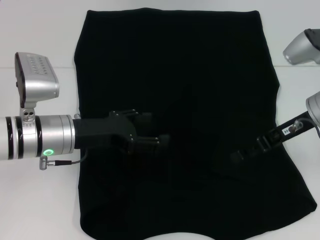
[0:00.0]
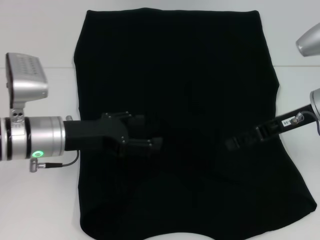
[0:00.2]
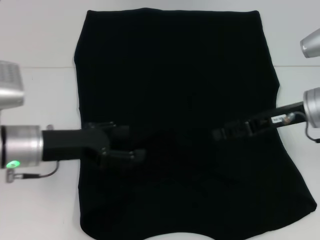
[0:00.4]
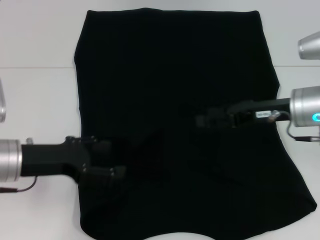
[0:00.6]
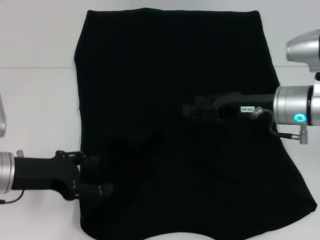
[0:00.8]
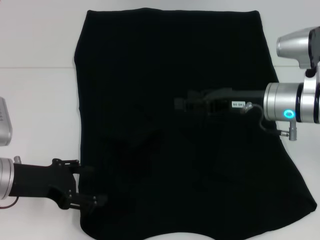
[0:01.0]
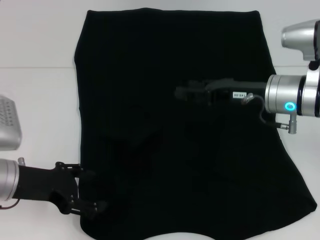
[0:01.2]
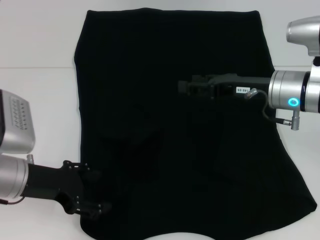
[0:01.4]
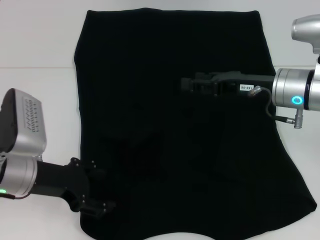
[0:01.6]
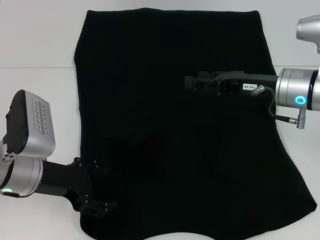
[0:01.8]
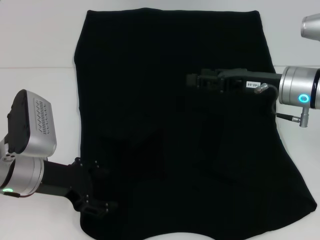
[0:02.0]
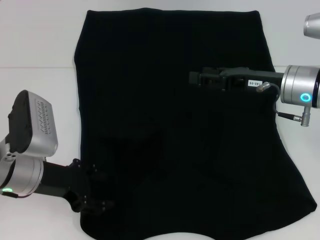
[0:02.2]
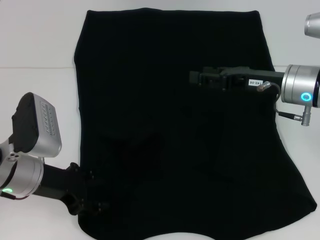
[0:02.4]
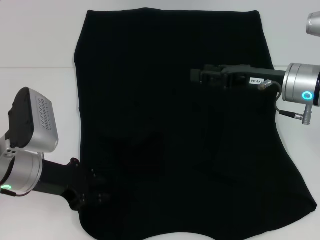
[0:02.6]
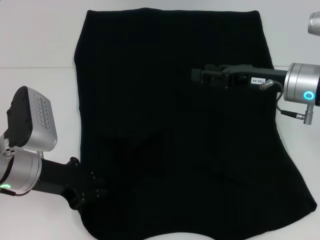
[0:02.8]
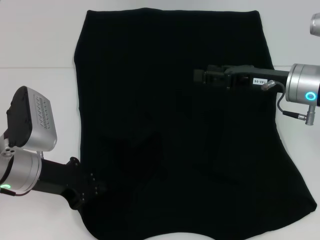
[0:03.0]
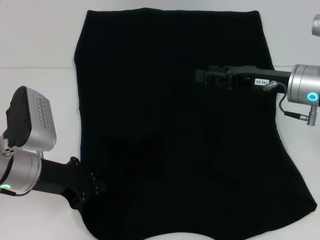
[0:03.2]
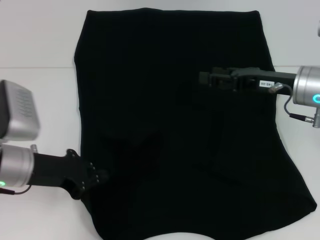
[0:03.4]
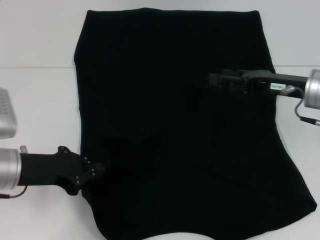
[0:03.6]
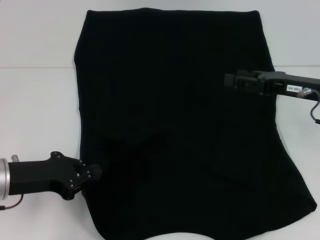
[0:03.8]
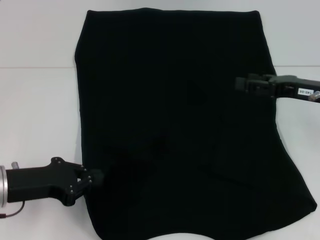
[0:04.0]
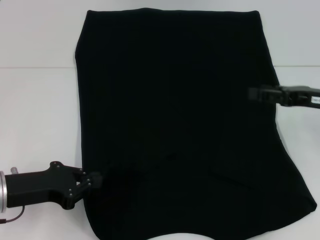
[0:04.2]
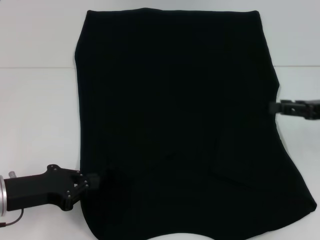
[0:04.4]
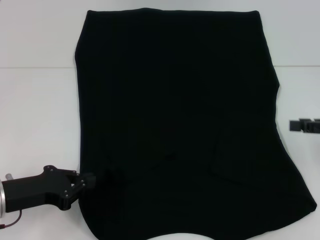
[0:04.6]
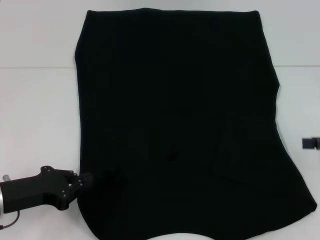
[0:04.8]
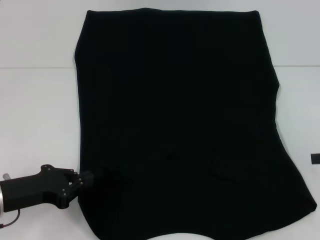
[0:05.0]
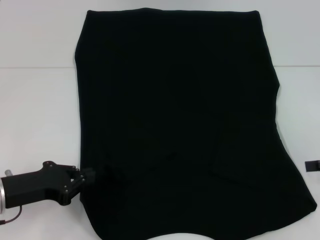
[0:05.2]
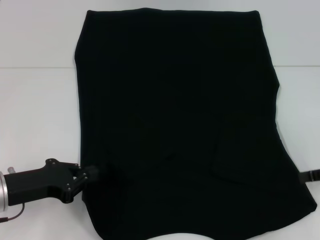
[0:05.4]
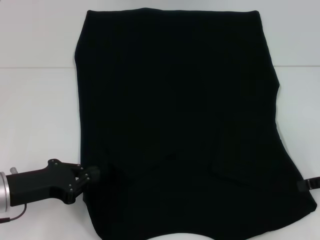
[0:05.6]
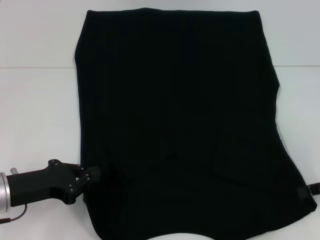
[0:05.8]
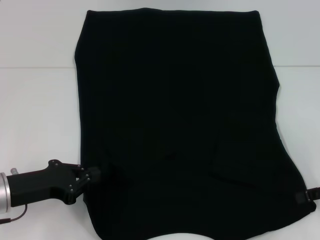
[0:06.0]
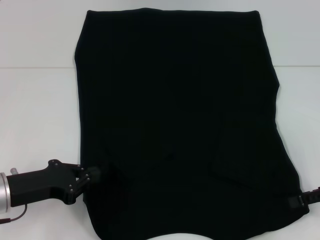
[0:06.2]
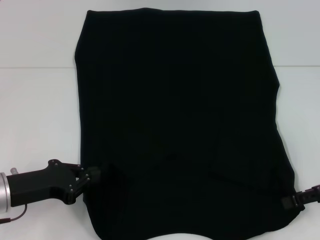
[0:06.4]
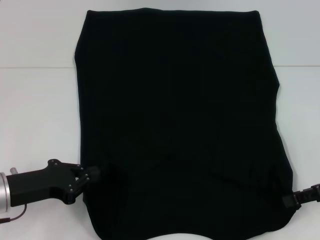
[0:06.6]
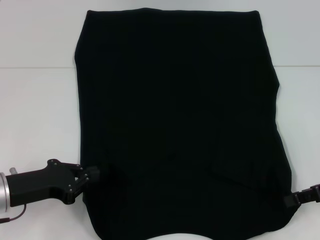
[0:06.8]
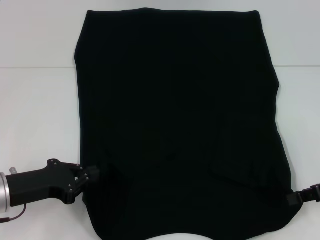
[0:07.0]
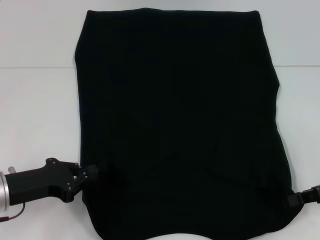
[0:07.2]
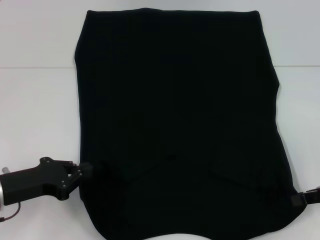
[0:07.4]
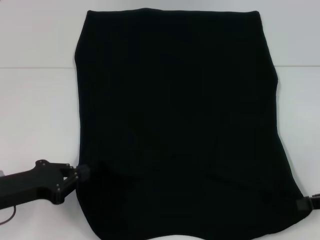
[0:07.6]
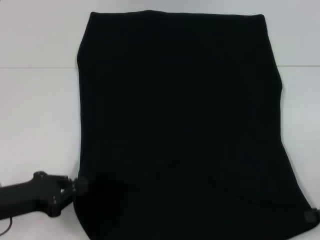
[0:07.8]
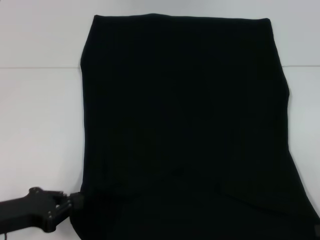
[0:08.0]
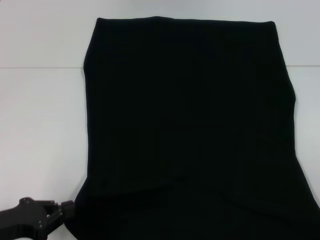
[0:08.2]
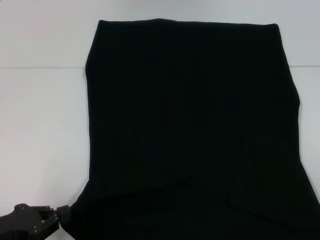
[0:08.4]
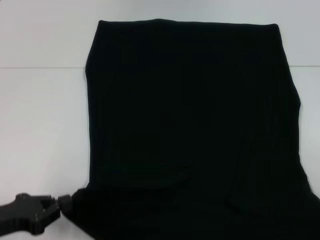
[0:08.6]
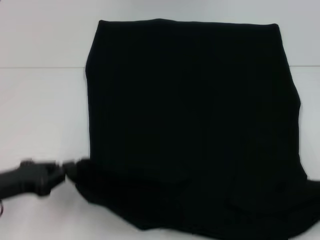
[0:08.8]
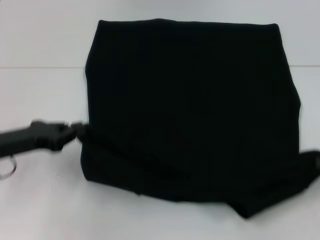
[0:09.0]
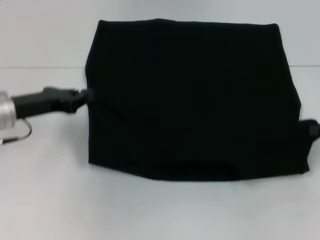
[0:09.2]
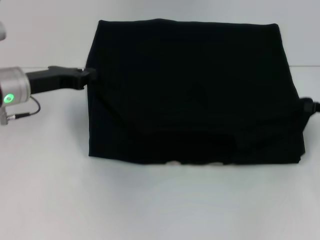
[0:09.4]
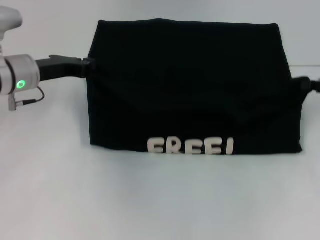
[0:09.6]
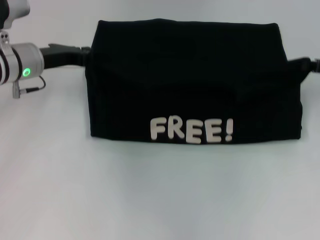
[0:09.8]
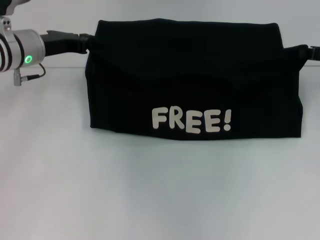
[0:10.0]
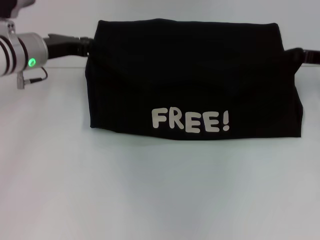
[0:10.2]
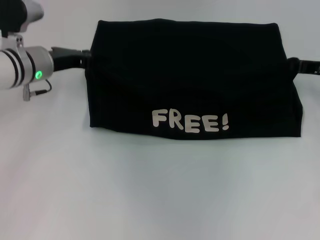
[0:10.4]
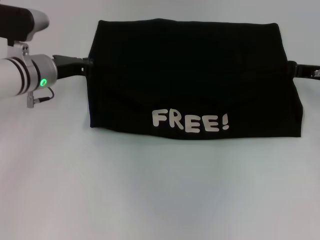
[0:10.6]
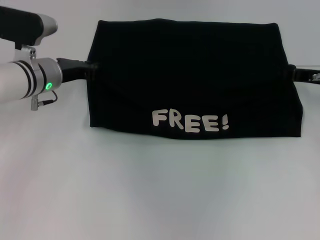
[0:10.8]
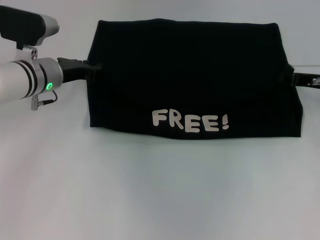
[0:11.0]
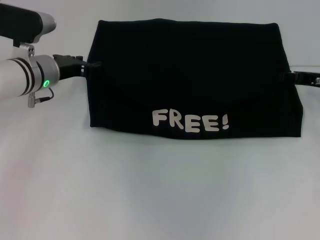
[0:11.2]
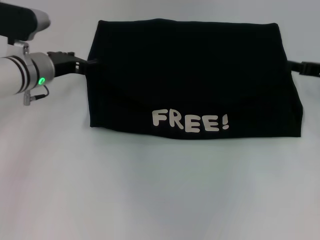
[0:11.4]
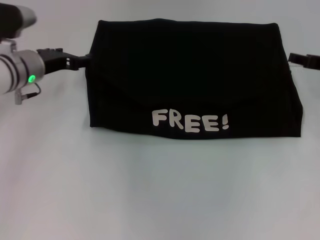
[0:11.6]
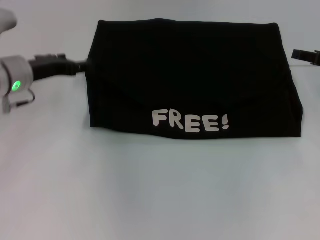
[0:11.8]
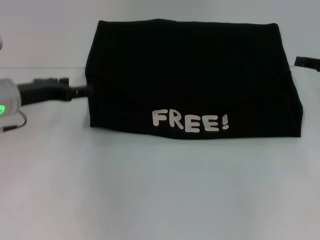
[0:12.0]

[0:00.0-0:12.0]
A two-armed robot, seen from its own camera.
Step, 0:00.2 to 0:03.0: Grab the bottom left corner with your left hand.
Step, 0:03.2 to 0:07.2: Grab the bottom right corner with your right hand.
Step, 0:07.4 to 0:11.0: Fold the clothes with your left hand.
Step, 0:07.4 to 0:11.0: Fold the clothes with your right hand.
0:00.0 to 0:01.6: The left gripper shifts by approximately 5 cm.
0:01.6 to 0:03.0: The left gripper closes.
0:03.0 to 0:04.4: The right gripper moves to the right, approximately 10 cm, while the left gripper goes roughly 5 cm backward.
0:04.4 to 0:06.0: The right gripper ends up approximately 5 cm from where it was.
0:06.0 to 0:07.6: The right gripper closes up.
0:07.6 to 0:09.0: The left gripper heads forward, covering roughly 5 cm.
0:09.0 to 0:10.4: The right gripper is displaced forward and to the left by some 15 cm, while the left gripper is displaced forward and to the right by roughly 15 cm.
0:10.4 to 0:12.0: The left gripper heads backward, covering about 5 cm, and opens up. Meanwhile the right gripper moves roughly 5 cm, and opens.

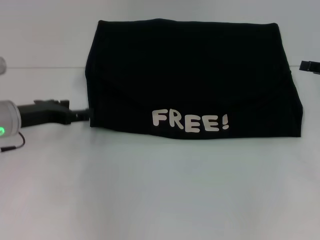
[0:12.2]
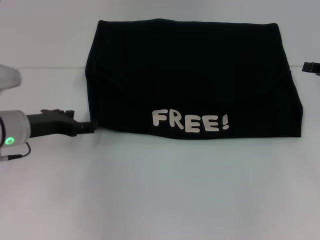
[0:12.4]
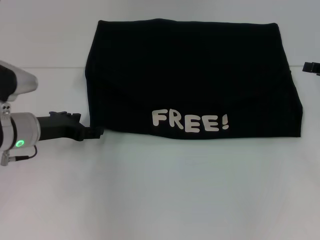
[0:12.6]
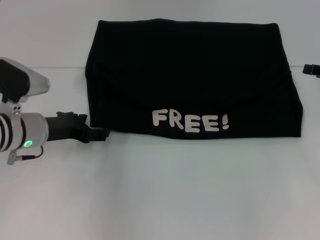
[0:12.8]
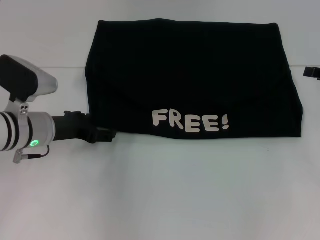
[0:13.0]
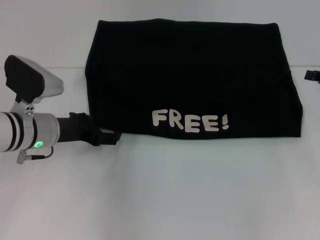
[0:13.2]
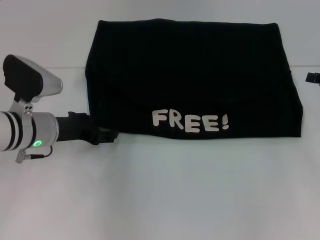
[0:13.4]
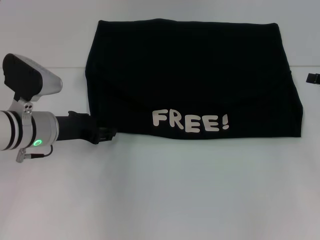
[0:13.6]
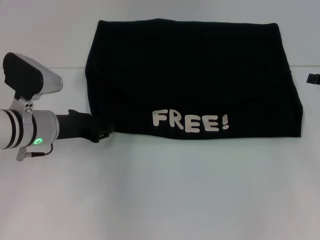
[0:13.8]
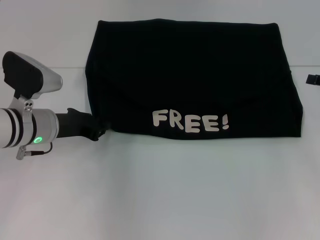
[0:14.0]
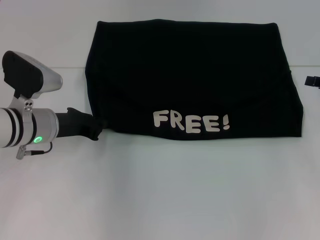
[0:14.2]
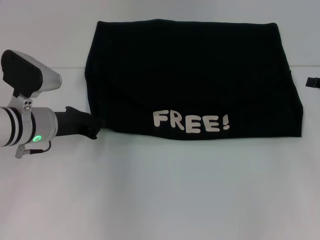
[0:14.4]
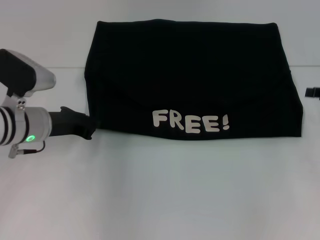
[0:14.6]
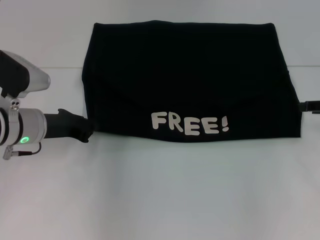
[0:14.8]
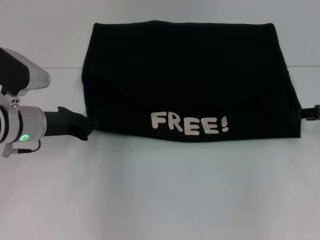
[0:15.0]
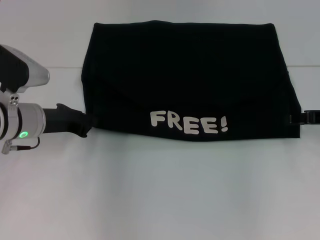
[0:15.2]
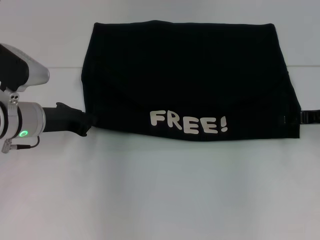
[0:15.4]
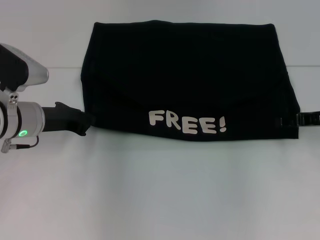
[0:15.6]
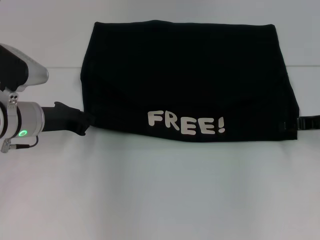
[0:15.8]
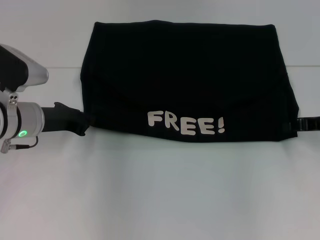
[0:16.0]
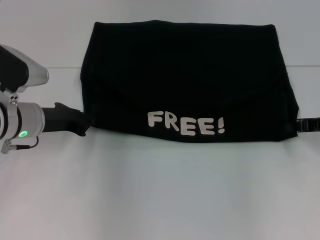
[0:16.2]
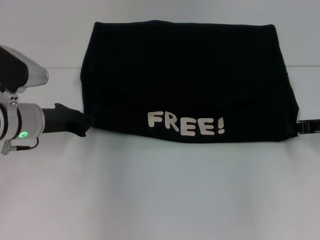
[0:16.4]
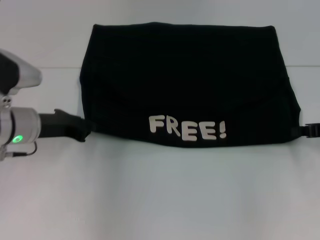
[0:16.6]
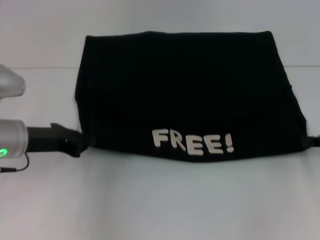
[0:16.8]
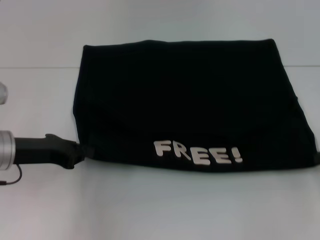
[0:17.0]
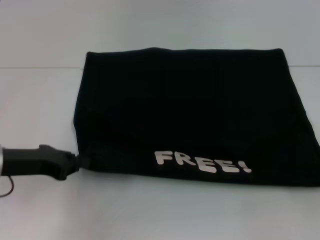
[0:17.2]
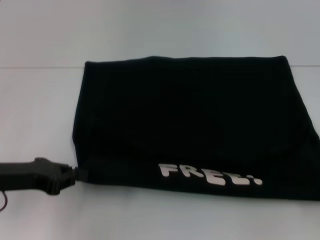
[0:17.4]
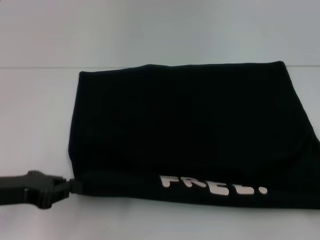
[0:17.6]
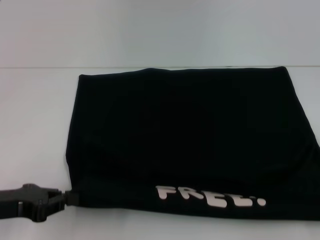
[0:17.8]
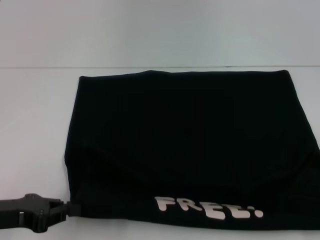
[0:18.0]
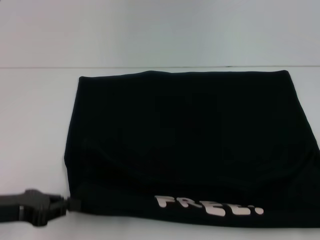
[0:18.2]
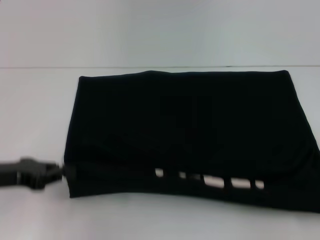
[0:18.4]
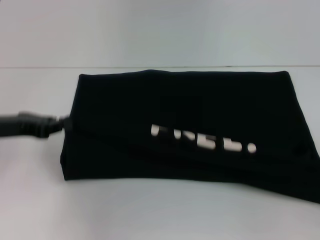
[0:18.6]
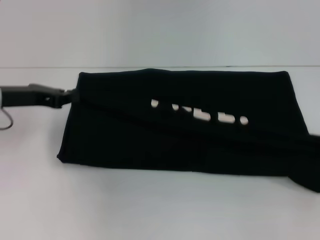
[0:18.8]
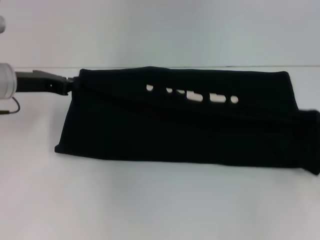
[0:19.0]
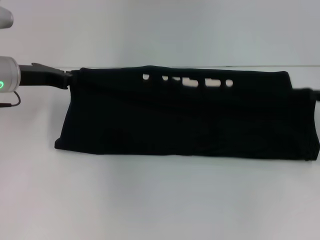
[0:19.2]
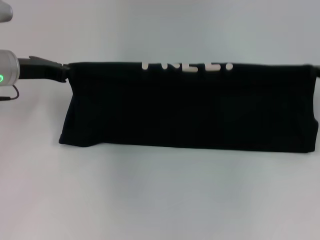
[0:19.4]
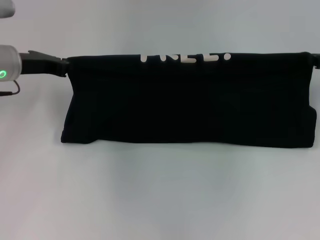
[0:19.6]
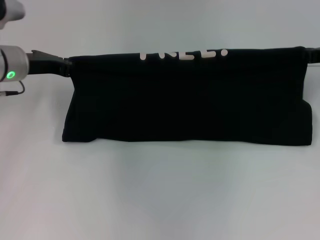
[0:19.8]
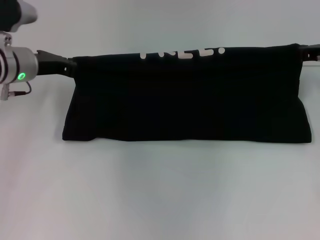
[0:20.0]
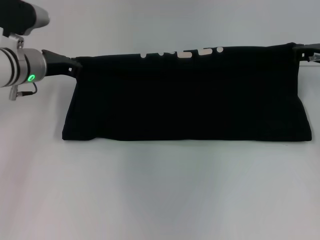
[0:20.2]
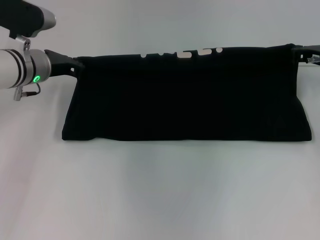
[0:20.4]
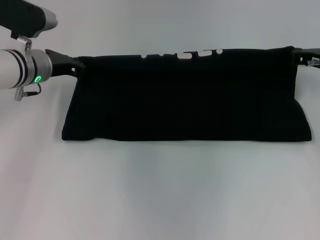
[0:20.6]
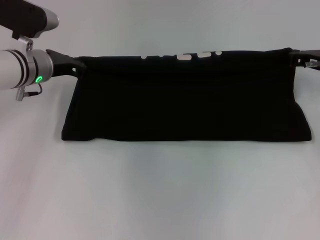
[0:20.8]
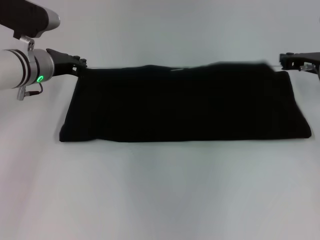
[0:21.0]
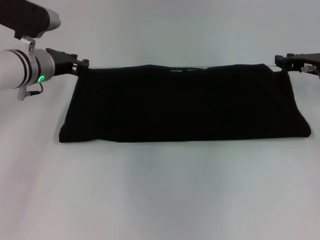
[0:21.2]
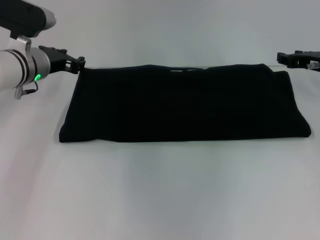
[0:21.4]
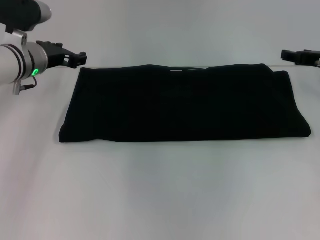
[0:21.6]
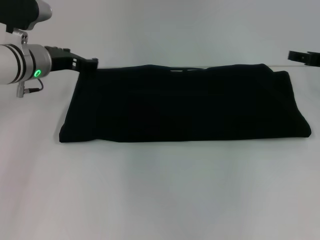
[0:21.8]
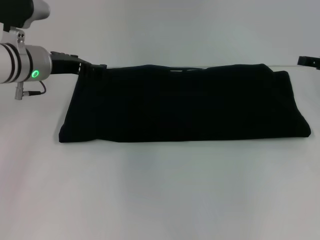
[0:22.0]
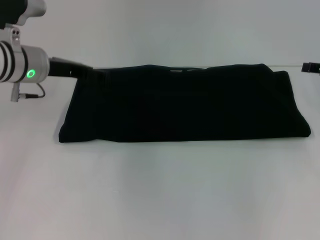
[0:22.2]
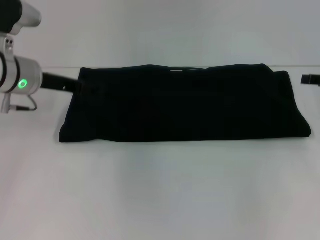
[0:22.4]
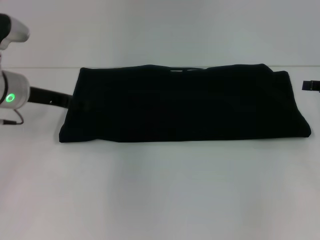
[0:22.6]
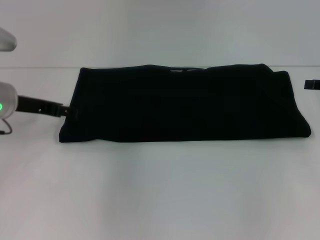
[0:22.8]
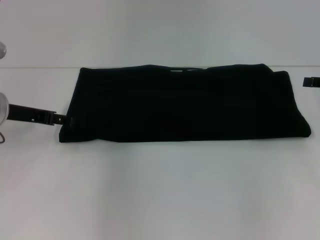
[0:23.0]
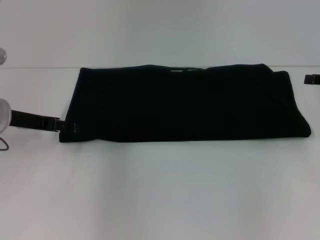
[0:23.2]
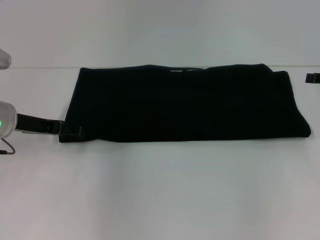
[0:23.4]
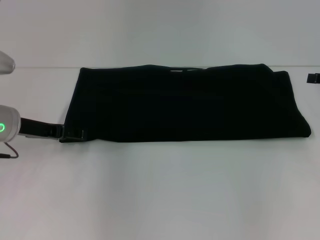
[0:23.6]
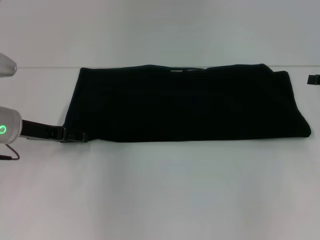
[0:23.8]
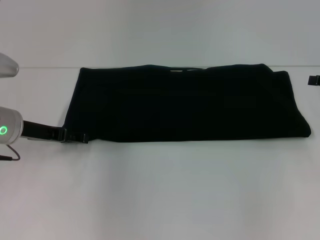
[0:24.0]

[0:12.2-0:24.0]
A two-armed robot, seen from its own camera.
Step, 0:12.2 to 0:17.8: Pull the clothes with your left hand.
Step, 0:12.2 to 0:17.8: Pull the clothes with your right hand.
Step, 0:18.0 to 0:21.2: Fold the clothes with your right hand.
0:12.2 to 0:13.6: The left gripper shifts about 5 cm to the right.
0:13.6 to 0:15.2: The left gripper closes its fingers.
0:15.2 to 0:16.6: The right gripper closes up.
0:16.6 to 0:18.2: The left gripper is displaced backward and to the left by some 15 cm. The right gripper goes about 15 cm backward and to the right.
0:18.2 to 0:19.6: Both grippers travel together forward, about 20 cm.
0:19.6 to 0:21.0: The left gripper changes place by some 5 cm, while the right gripper shifts some 5 cm to the left.
0:21.0 to 0:22.6: The left gripper changes place by roughly 5 cm, and opens, while the right gripper travels to the right and backward by approximately 10 cm, and opens up.
0:22.6 to 0:24.0: The grippers move only a little.
